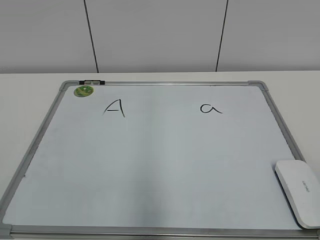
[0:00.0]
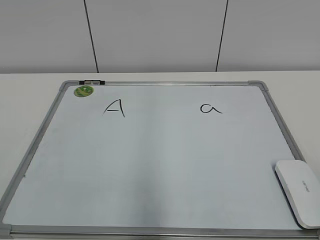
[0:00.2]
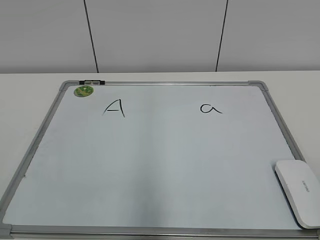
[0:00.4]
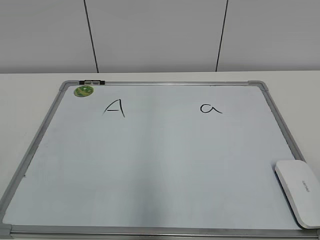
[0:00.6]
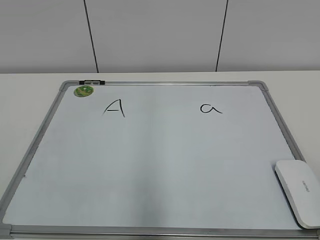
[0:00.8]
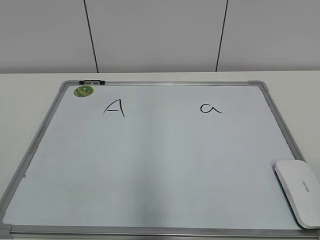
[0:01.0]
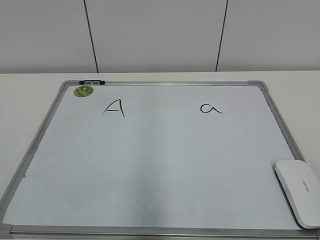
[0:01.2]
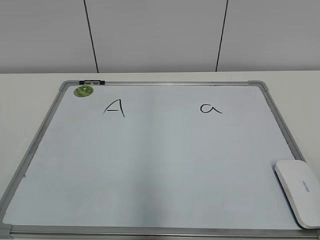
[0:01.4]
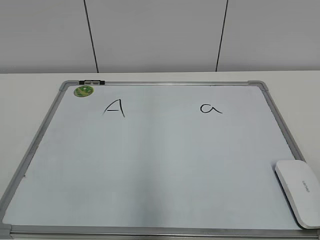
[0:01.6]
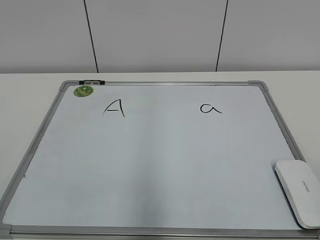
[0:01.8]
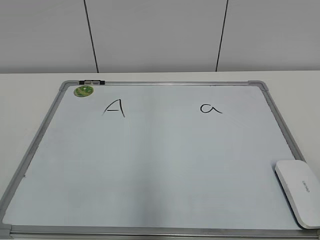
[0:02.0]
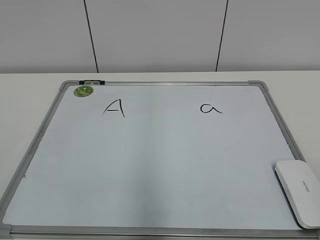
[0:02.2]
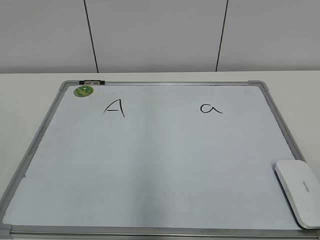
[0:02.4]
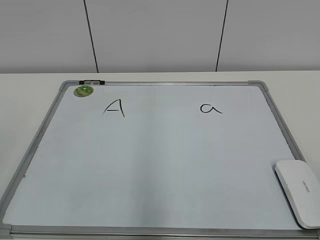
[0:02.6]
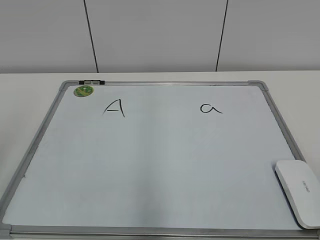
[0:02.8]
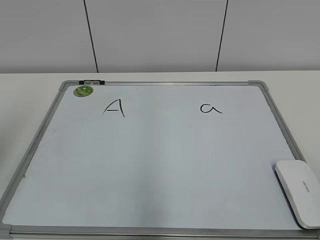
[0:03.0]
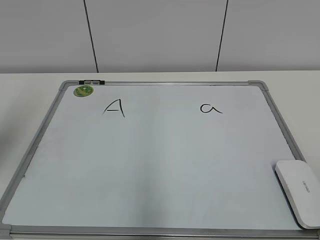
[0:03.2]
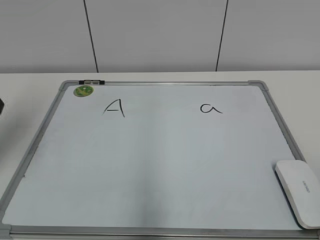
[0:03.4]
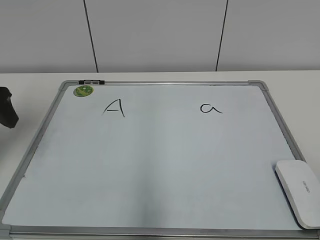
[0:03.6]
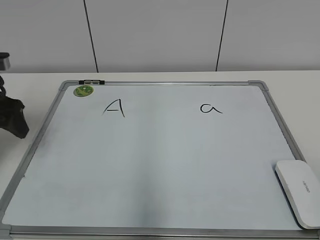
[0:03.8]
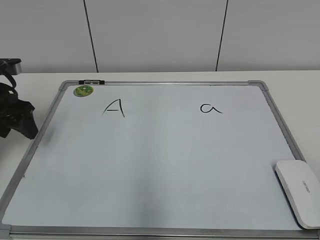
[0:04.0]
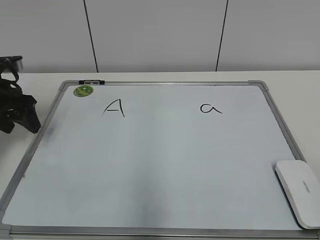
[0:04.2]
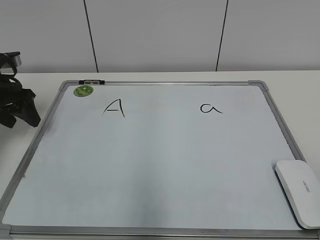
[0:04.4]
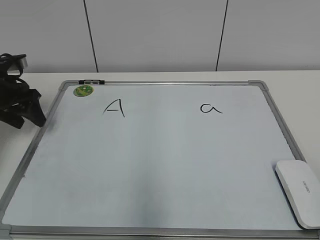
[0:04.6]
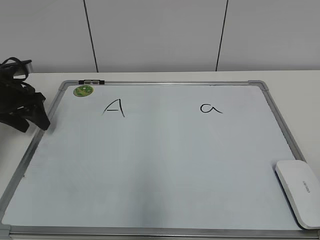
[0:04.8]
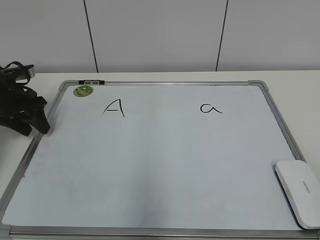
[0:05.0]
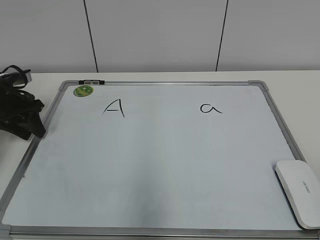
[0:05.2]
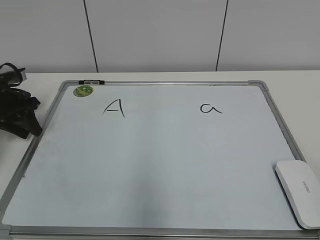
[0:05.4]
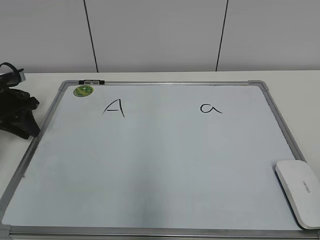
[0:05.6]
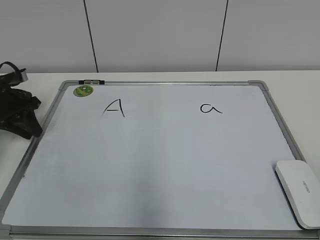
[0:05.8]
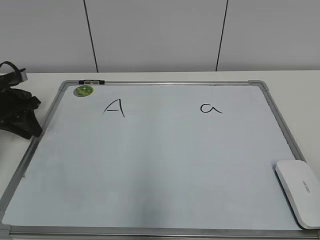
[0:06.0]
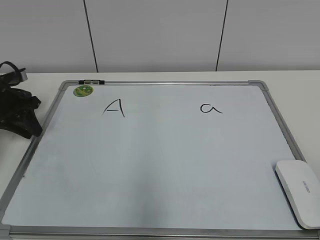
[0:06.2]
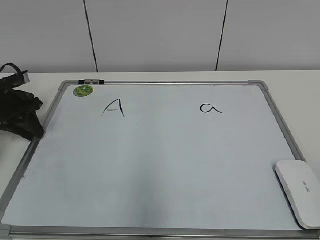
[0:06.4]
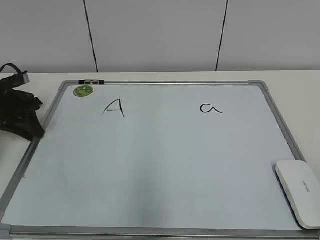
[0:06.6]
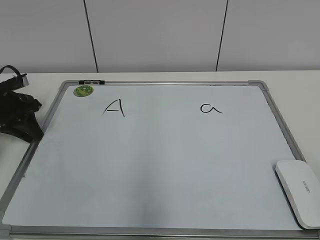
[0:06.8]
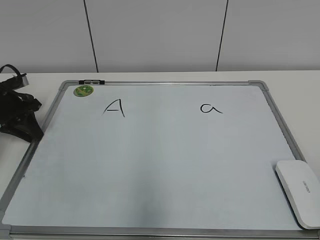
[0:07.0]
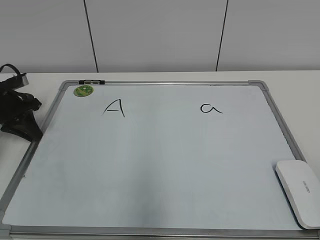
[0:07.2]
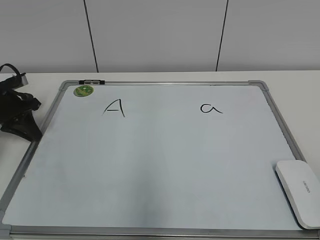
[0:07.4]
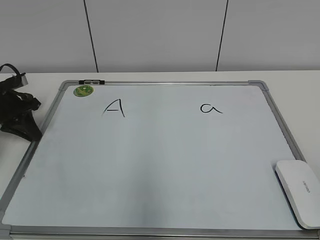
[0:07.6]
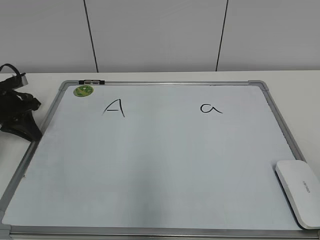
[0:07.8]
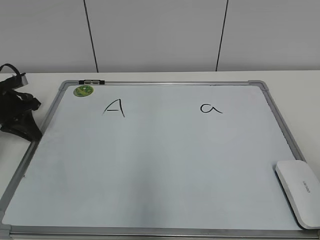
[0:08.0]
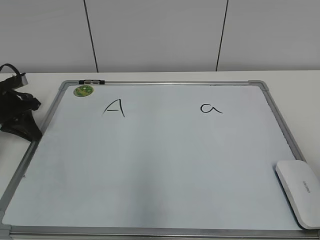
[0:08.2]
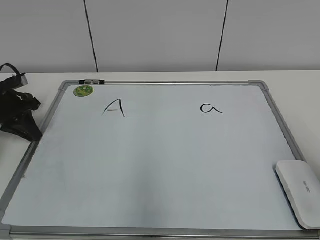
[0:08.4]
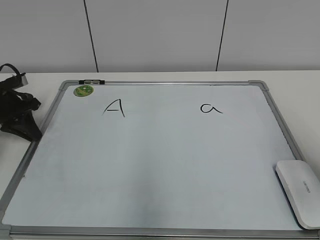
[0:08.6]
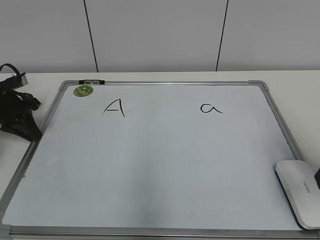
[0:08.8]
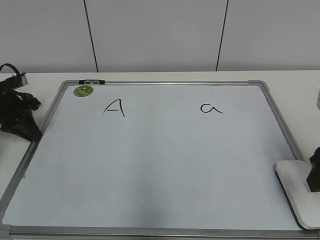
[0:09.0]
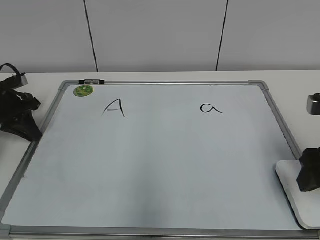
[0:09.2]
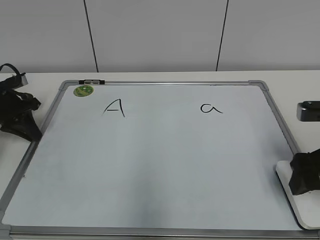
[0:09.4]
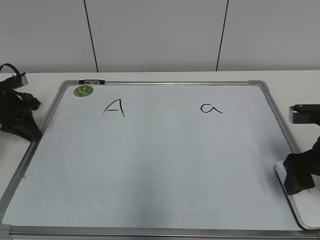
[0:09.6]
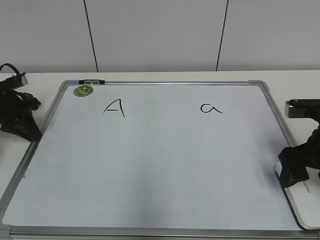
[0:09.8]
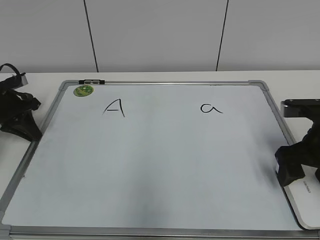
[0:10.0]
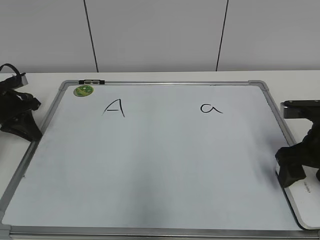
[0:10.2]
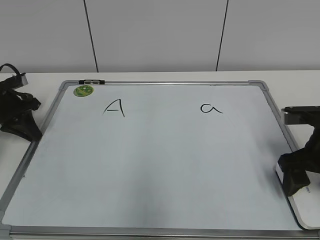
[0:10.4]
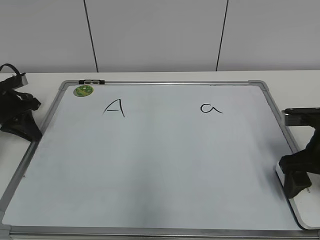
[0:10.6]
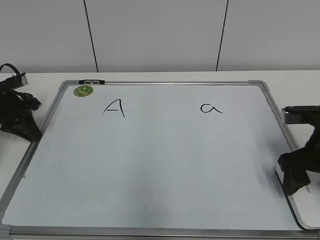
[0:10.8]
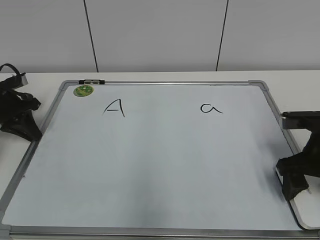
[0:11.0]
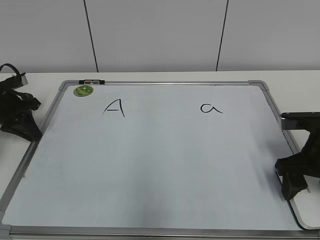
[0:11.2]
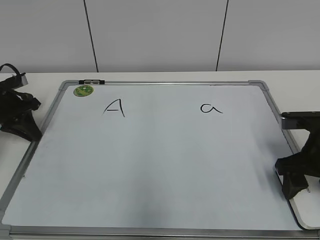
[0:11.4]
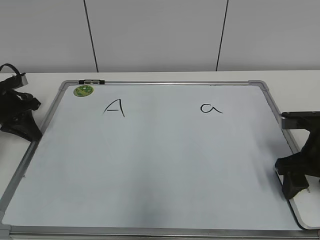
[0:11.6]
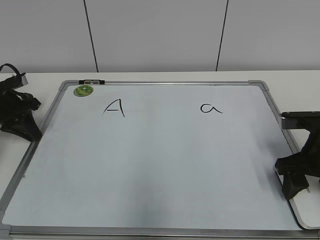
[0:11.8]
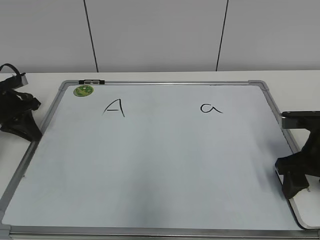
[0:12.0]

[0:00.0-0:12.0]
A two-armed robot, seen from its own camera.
Task of the whole recording: pick up the eraser on the blackboard and erase the letter "a".
Step, 0:07.4 to 0:11.8: Erase the letter B with your right hand.
0:03.0 to 0:04.4: The left gripper moves forward and downward, approximately 25 cm.
0:04.4 to 0:06.0: The left gripper shifts by approximately 5 cm, and closes up.
0:07.6 to 0:09.0: The right gripper heads forward, covering some 20 cm.
0:09.0 to 0:10.4: The right gripper goes about 10 cm forward and downward, and opens.
0:10.4 to 0:12.0: The right gripper closes up.

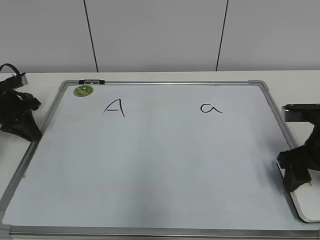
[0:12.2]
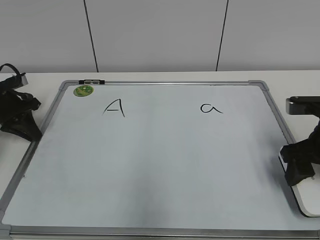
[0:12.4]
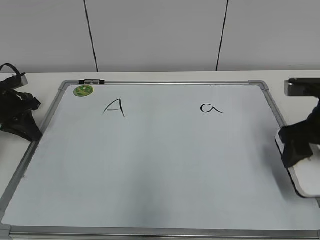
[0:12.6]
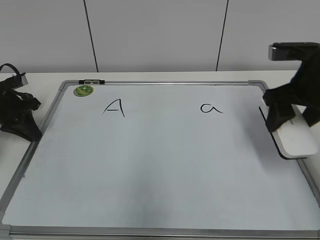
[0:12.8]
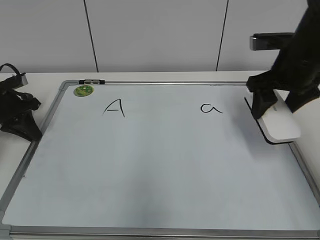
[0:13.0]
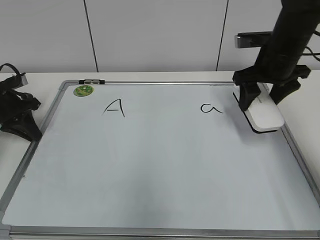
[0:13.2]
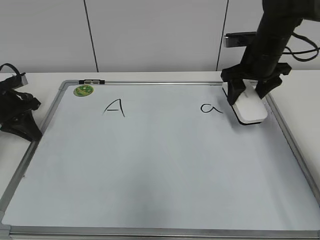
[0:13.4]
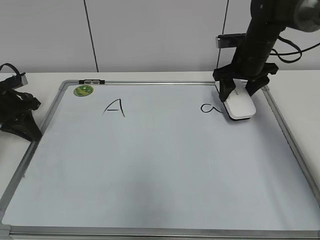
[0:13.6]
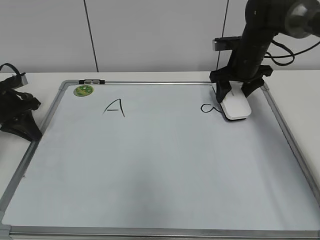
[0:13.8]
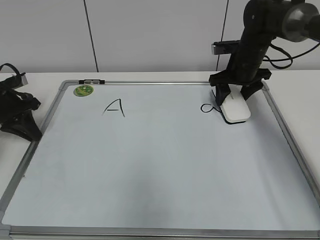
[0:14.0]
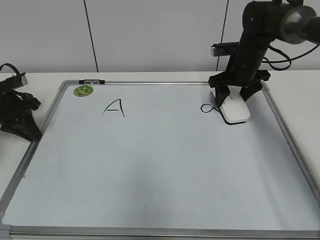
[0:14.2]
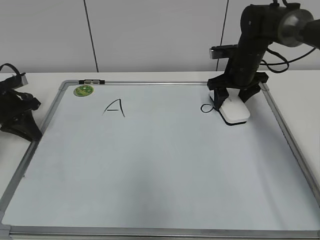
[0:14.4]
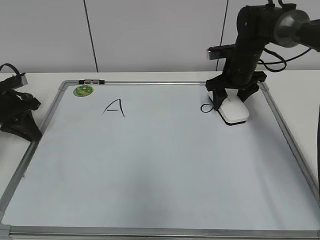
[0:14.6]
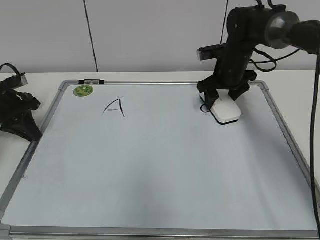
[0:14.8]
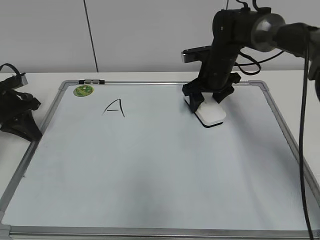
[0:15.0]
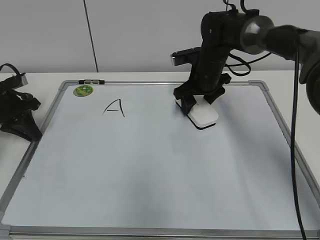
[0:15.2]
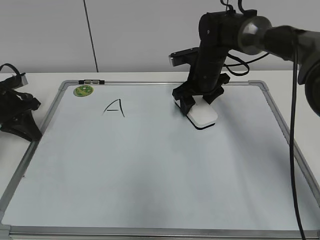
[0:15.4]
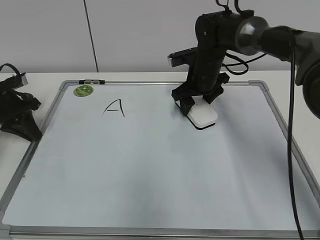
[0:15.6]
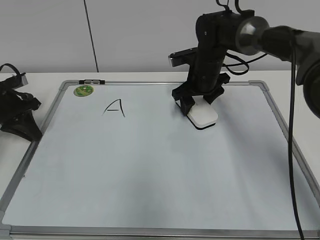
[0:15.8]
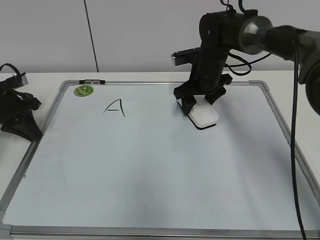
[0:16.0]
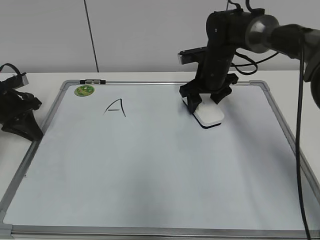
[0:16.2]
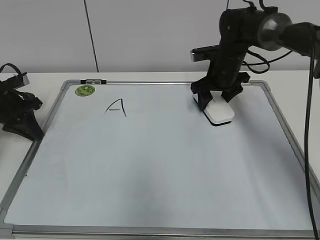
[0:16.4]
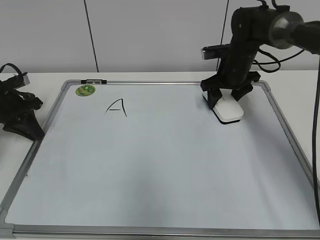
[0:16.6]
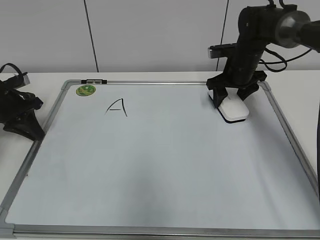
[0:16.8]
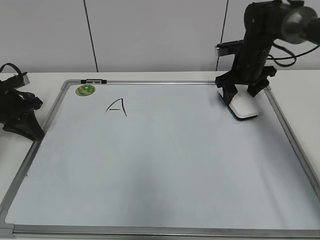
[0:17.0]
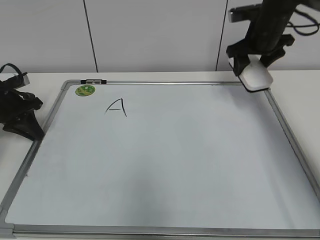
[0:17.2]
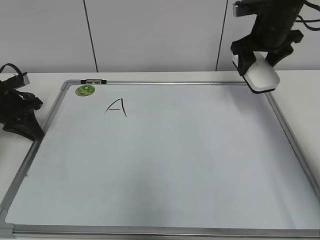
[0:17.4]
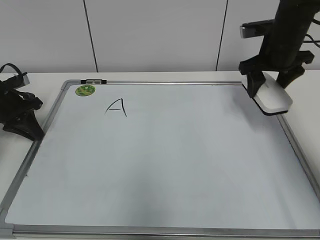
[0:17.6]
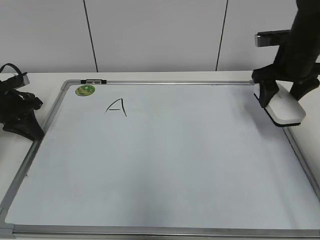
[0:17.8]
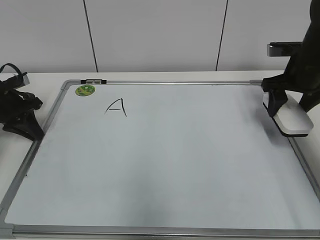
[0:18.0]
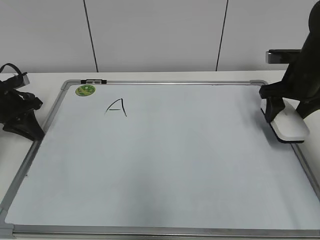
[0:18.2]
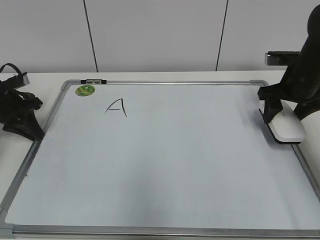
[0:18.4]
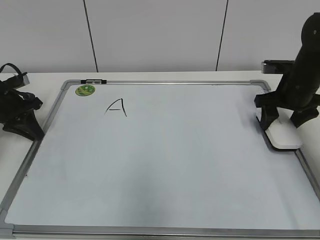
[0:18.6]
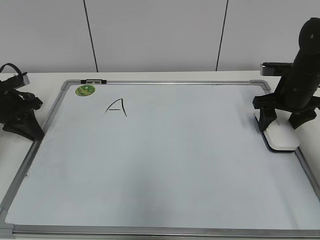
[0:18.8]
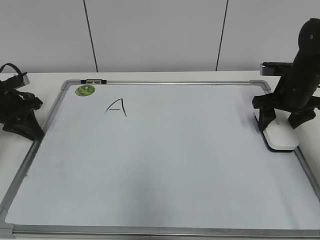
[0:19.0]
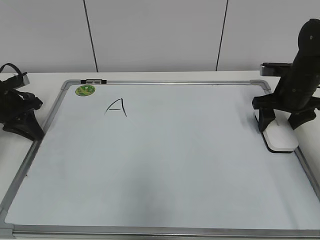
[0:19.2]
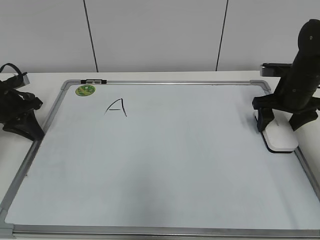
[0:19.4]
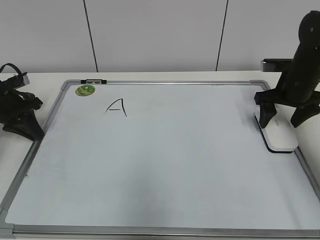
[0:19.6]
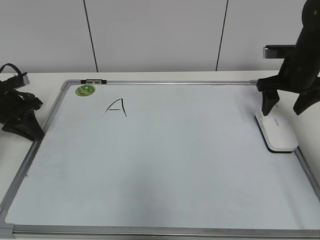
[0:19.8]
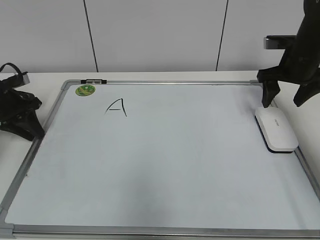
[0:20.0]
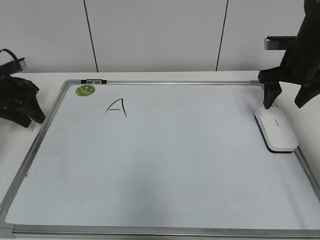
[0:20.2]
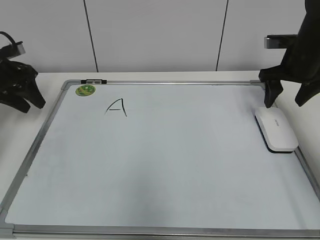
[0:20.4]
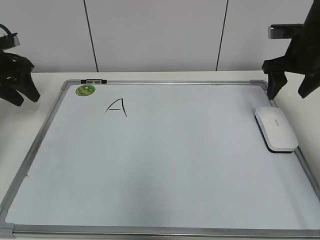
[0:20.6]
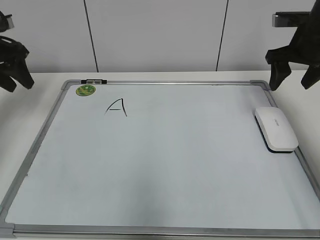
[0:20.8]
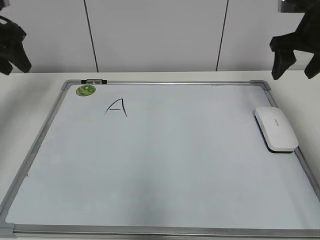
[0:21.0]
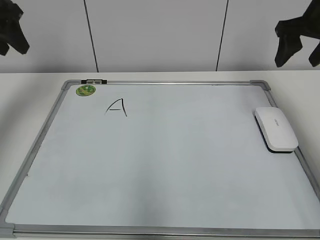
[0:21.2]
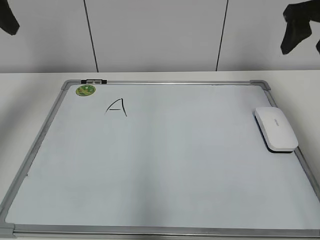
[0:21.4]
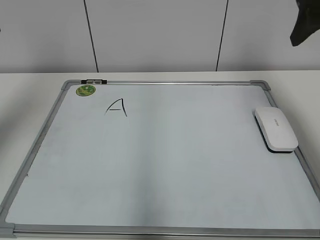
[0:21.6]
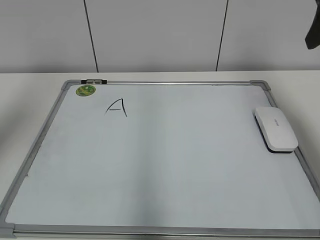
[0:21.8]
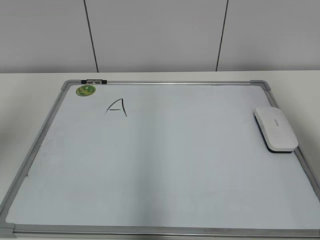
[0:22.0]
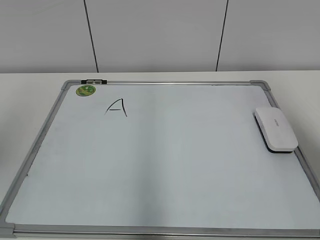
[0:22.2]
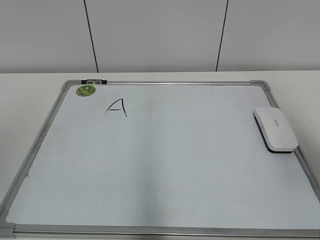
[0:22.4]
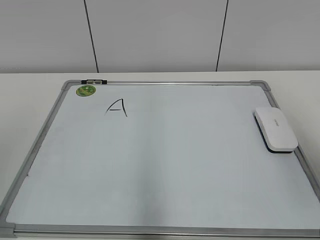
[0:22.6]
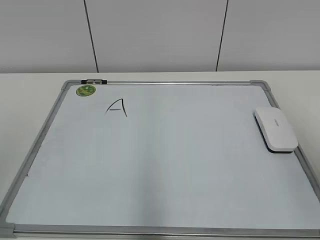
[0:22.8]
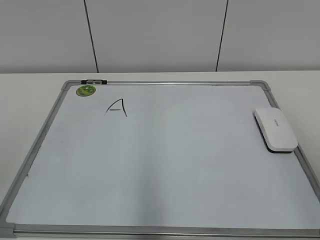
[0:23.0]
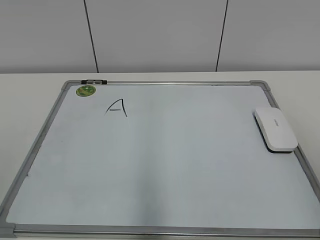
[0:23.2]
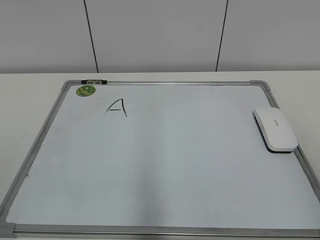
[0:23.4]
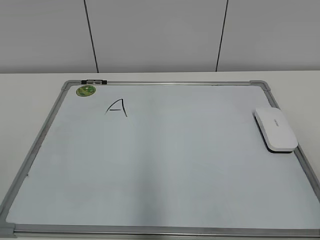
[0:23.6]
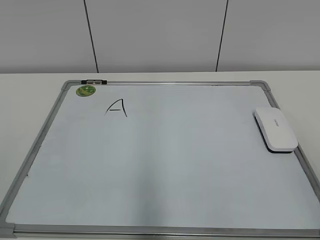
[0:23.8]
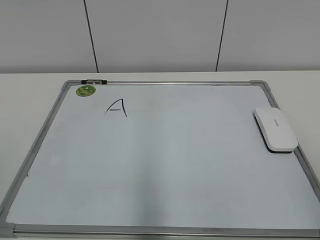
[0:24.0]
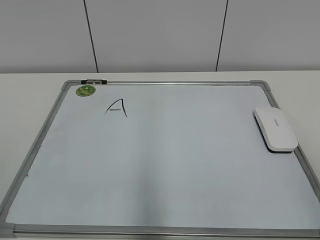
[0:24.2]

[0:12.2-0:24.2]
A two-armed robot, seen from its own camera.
Task of the whole recording: pick up the eraser on the blackboard and erase the letter "a".
Step, 0:12.2 to 0:16.6: Erase the letter a with your right hand.
0:12.2 to 0:13.8: The right gripper travels forward by about 20 cm.
0:13.8 to 0:15.2: The right gripper travels to the left by approximately 10 cm.
0:15.2 to 0:16.6: The right gripper shifts roughly 5 cm to the right.
0:16.6 to 0:18.2: The right gripper goes about 15 cm to the right and backward.
0:18.2 to 0:19.8: The right gripper opens.
0:19.8 to 0:21.2: The left gripper goes about 20 cm upward, and opens its fingers; the right gripper moves upward, about 10 cm.
0:21.2 to 0:22.6: The grippers both shift backward by some 30 cm.
